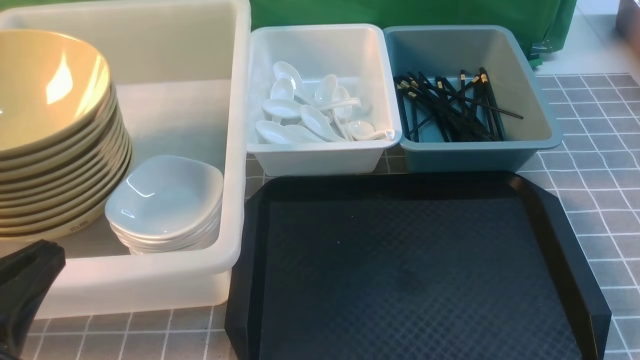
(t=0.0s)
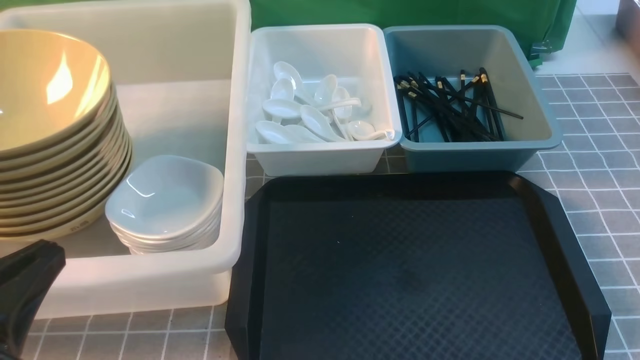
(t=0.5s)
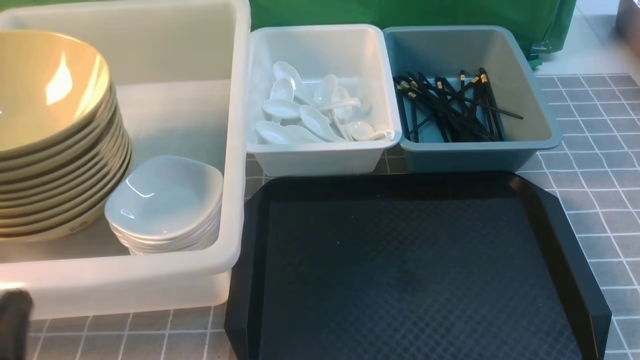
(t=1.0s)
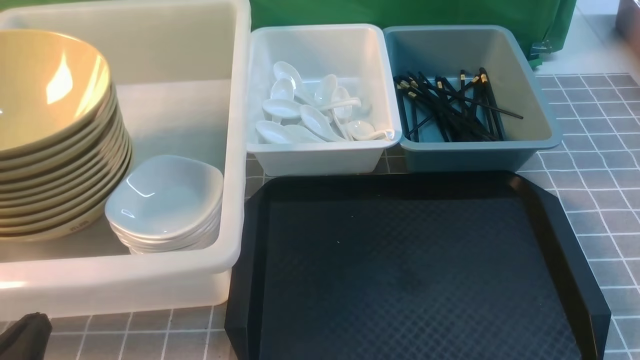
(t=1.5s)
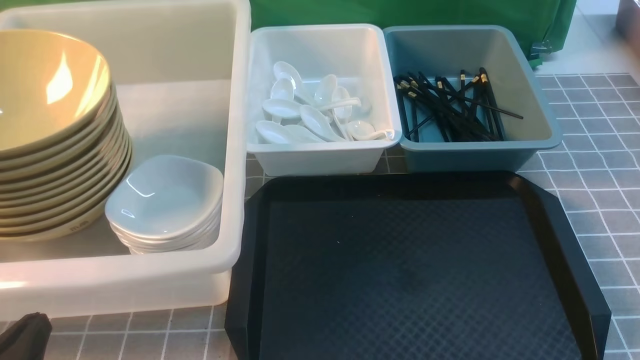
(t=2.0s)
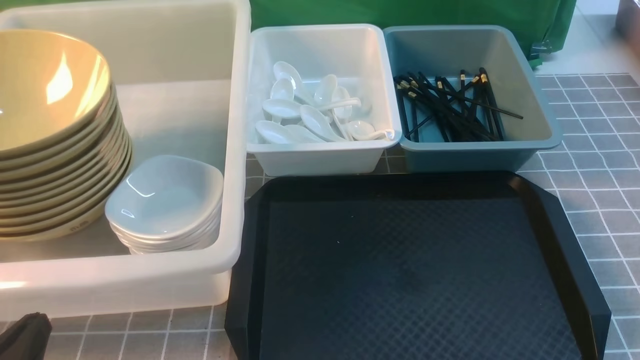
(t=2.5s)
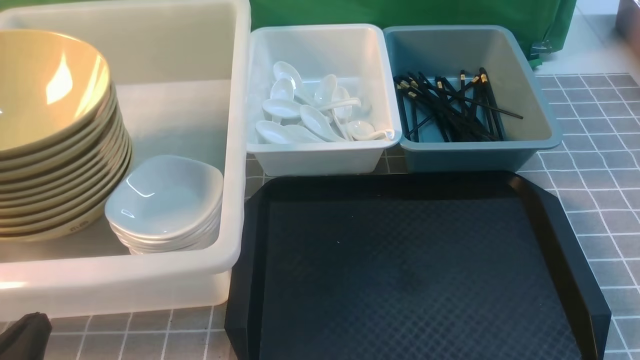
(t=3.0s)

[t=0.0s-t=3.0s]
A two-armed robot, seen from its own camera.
Task of the whole recording: on grey table put chopsticks spoon bowls plates into blue grey white boxes.
t=0.0s to t=1.5s: The left gripper heads downward, covering about 10 cm.
t=1.5s to t=3.0s: Neither gripper changes place.
